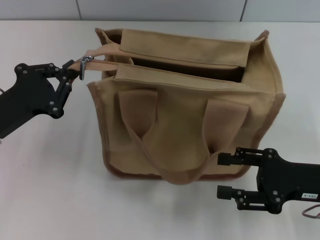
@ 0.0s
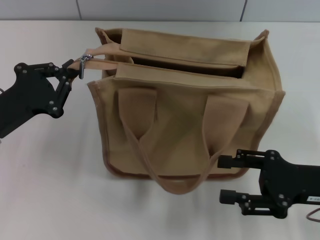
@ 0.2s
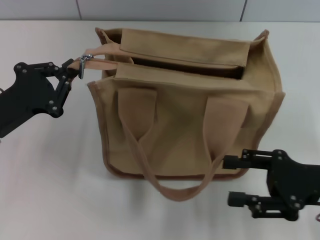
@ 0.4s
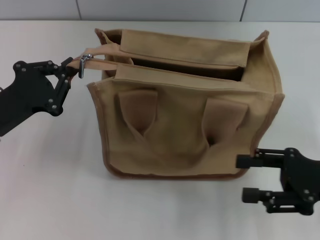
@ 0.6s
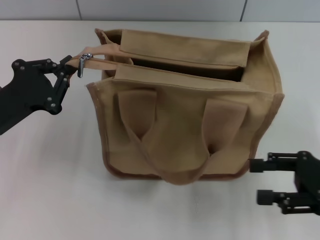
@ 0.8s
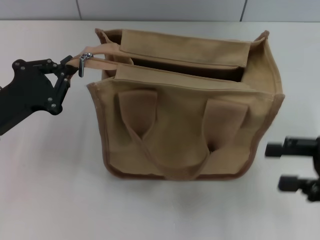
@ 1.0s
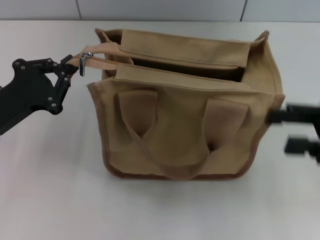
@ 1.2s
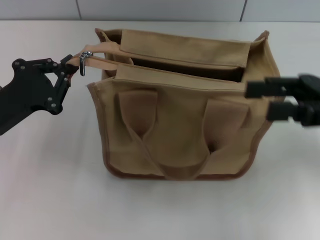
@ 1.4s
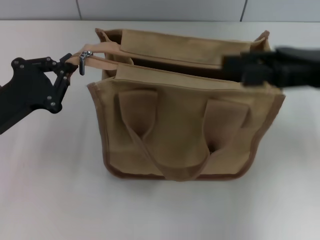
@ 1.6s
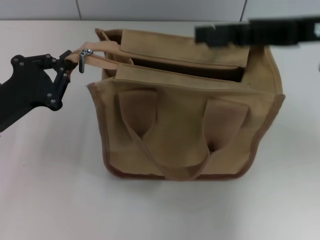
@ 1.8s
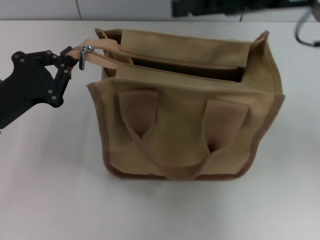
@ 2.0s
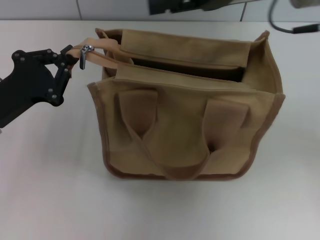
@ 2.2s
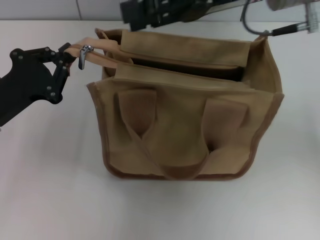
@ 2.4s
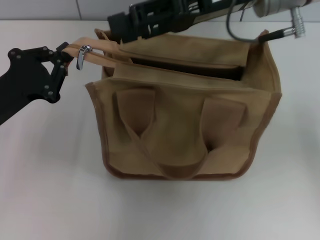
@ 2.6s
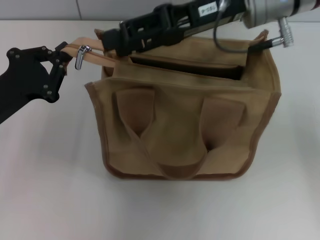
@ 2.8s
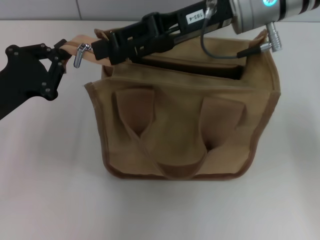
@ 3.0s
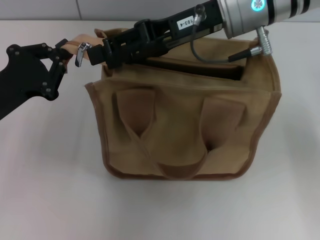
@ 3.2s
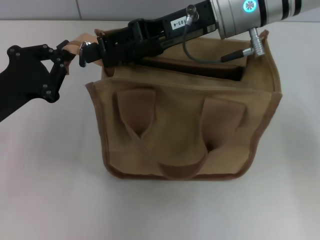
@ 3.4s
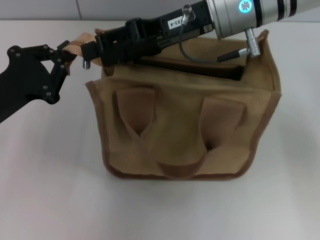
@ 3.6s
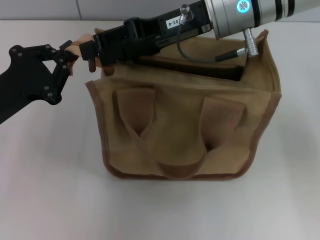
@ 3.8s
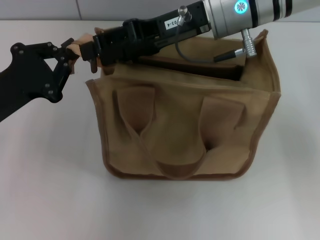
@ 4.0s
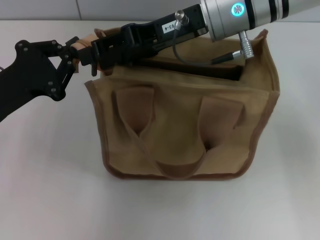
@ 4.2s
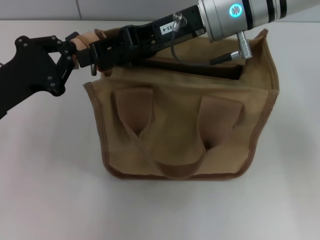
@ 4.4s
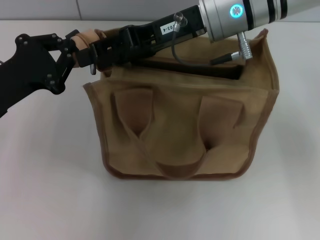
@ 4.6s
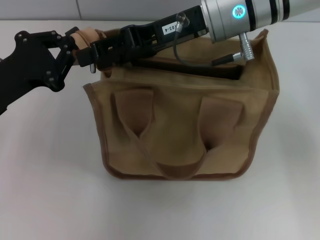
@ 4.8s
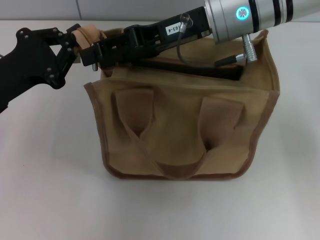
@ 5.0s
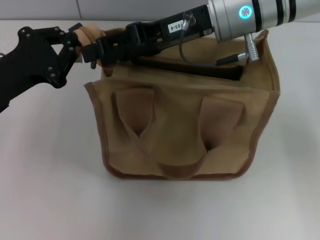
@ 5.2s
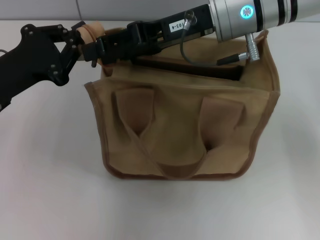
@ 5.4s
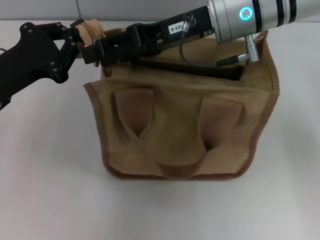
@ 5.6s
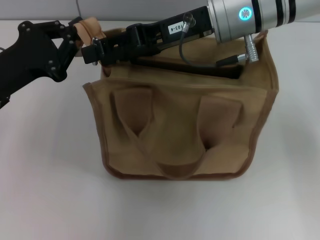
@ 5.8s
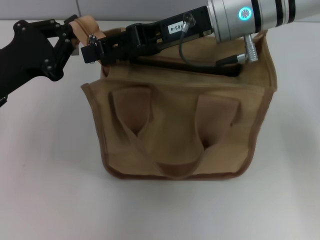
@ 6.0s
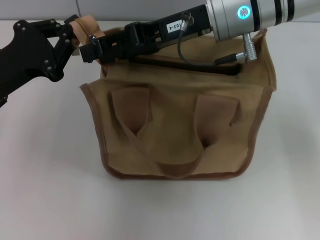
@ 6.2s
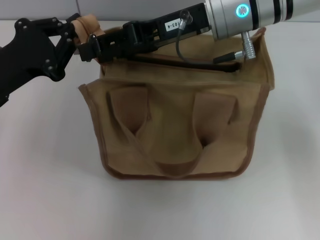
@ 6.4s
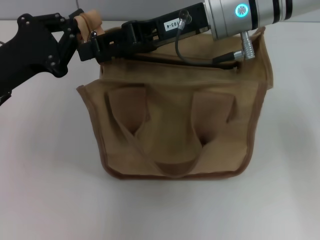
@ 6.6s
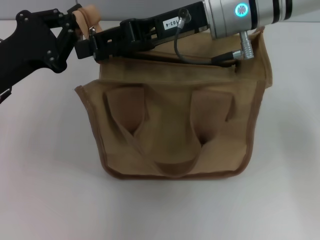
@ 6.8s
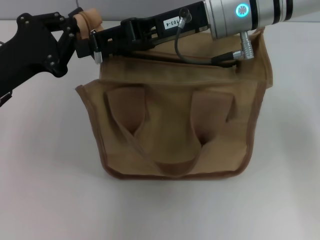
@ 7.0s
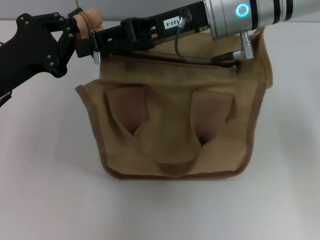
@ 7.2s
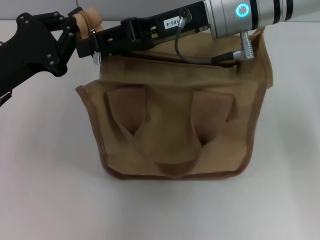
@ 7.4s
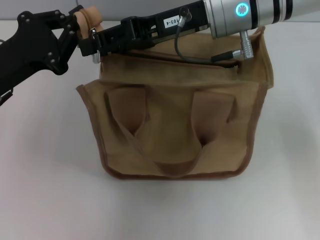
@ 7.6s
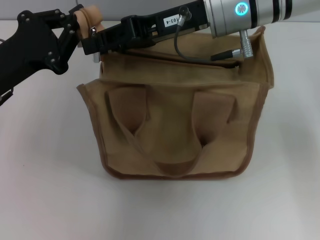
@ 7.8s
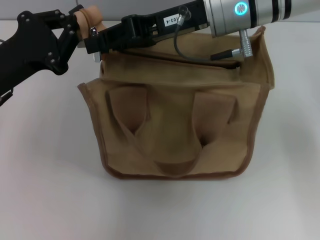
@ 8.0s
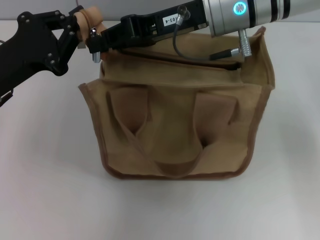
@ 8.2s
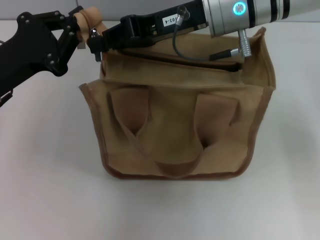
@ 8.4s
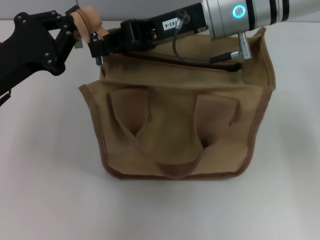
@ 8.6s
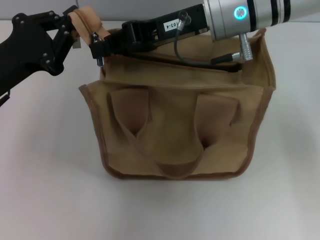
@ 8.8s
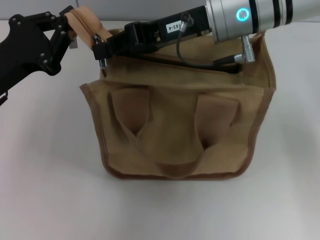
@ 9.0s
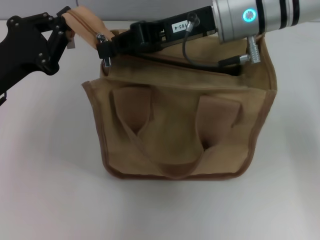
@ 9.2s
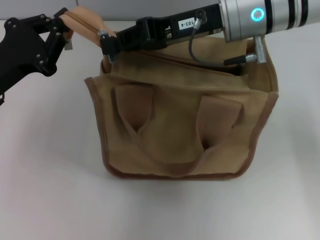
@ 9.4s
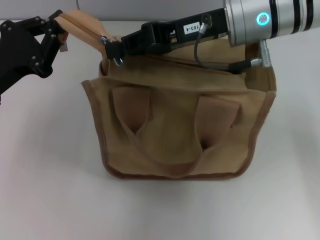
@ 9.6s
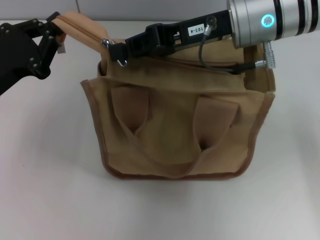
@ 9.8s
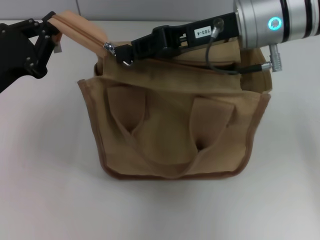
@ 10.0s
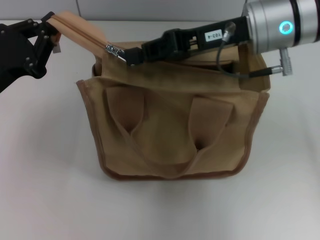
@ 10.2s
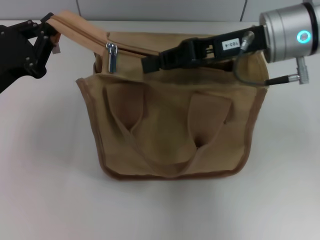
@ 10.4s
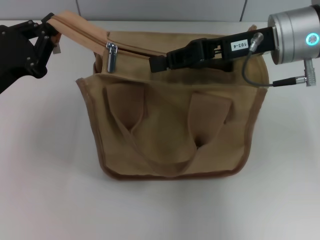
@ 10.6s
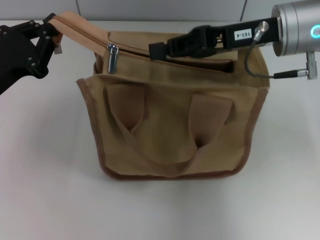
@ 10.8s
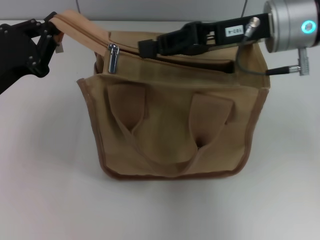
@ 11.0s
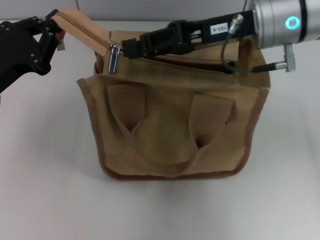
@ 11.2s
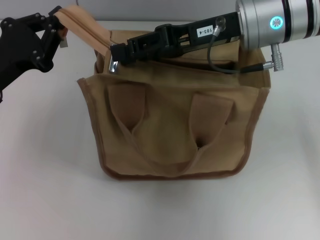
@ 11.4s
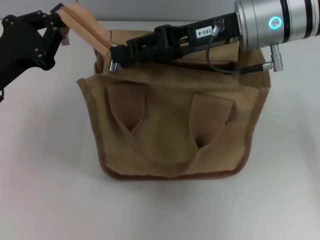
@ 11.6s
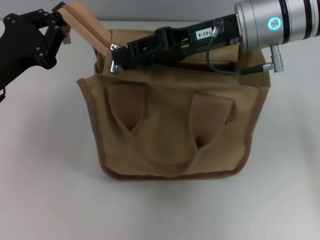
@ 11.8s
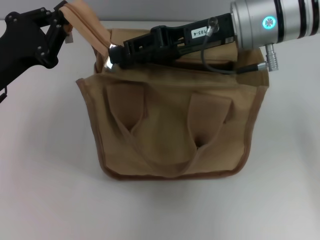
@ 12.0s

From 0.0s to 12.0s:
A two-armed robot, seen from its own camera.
From 0.0s to 1.6s: The right gripper goes approximately 15 cm upward and forward.
From 1.6s to 3.0s: The right gripper heads to the left and forward, covering some 15 cm.
From 3.0s to 6.0s: The grippers make only small movements.
From 6.0s to 7.6s: Both grippers stay about where they are.
From 7.6s to 9.0s: The right gripper closes up.
From 9.0s to 10.4s: The right gripper shifts approximately 5 cm to the right.
From 10.4s to 12.0s: The right gripper opens.

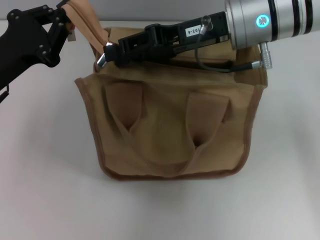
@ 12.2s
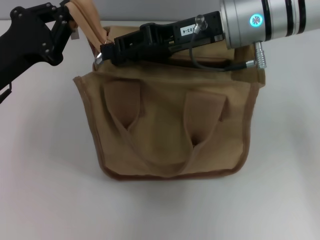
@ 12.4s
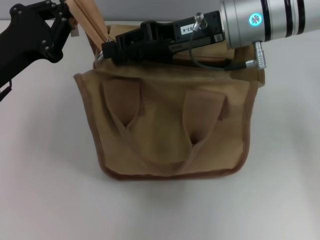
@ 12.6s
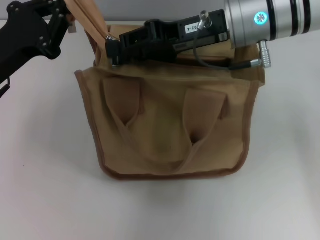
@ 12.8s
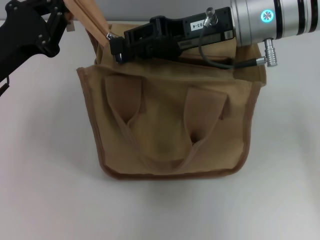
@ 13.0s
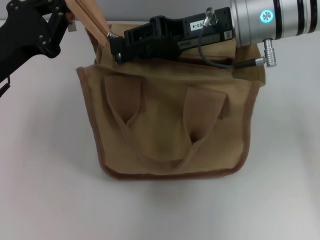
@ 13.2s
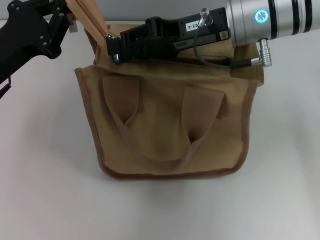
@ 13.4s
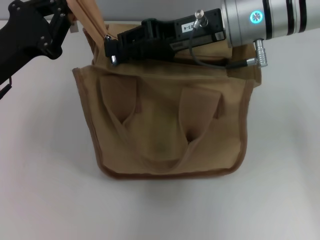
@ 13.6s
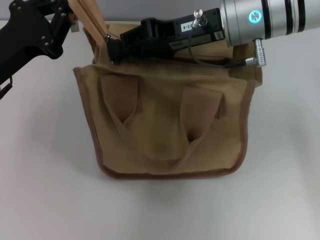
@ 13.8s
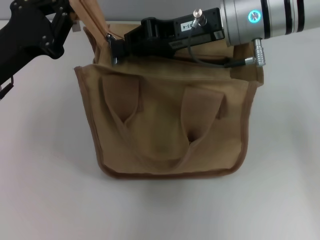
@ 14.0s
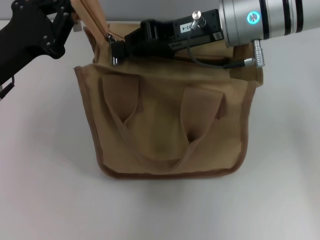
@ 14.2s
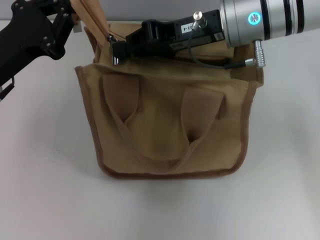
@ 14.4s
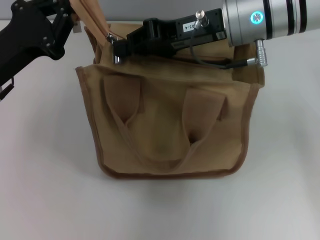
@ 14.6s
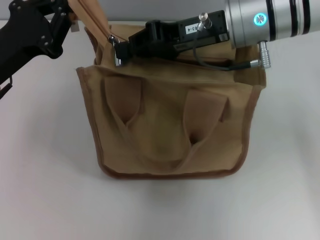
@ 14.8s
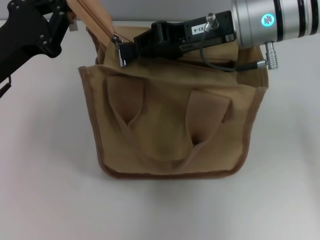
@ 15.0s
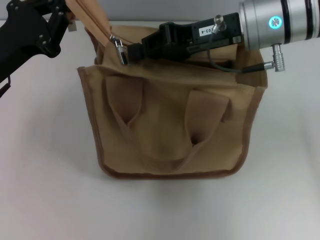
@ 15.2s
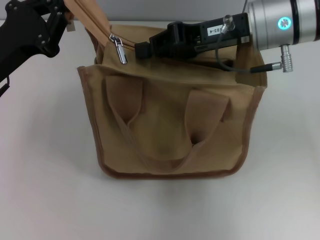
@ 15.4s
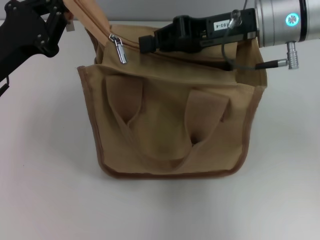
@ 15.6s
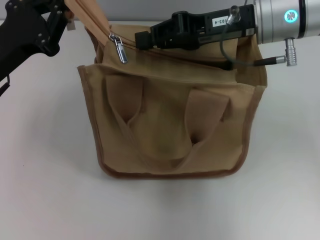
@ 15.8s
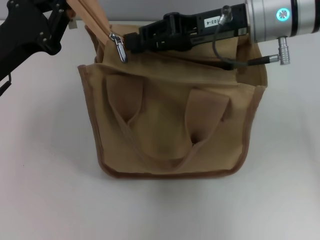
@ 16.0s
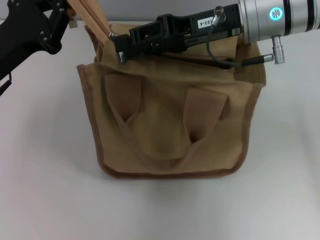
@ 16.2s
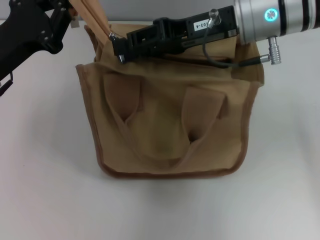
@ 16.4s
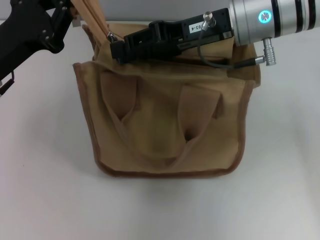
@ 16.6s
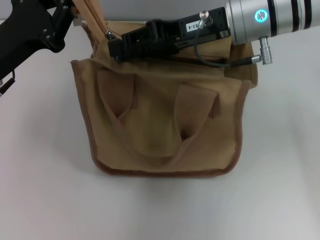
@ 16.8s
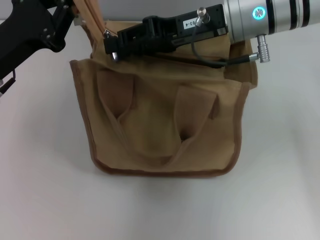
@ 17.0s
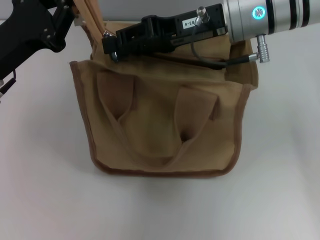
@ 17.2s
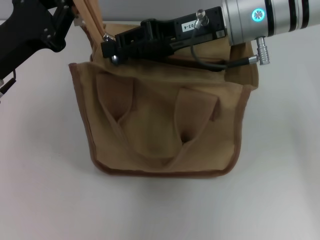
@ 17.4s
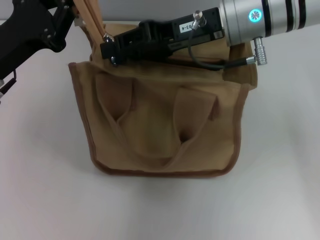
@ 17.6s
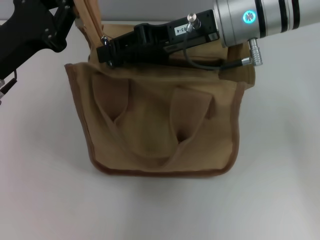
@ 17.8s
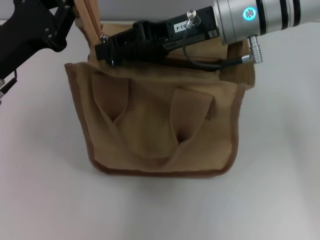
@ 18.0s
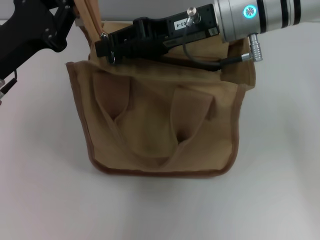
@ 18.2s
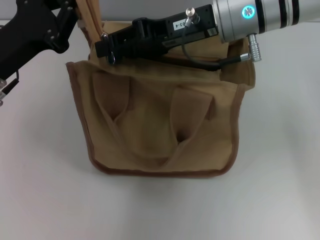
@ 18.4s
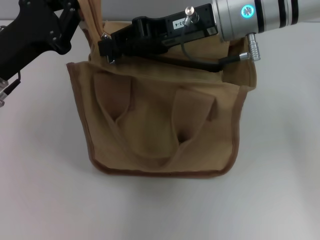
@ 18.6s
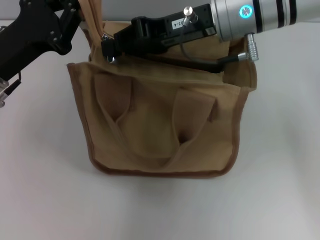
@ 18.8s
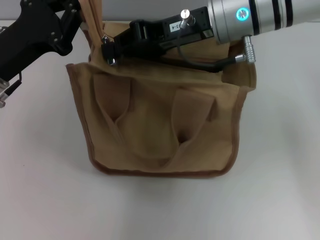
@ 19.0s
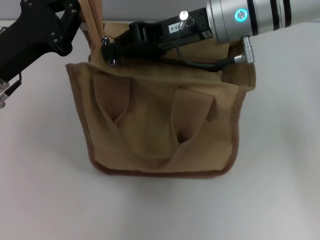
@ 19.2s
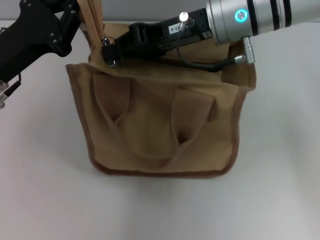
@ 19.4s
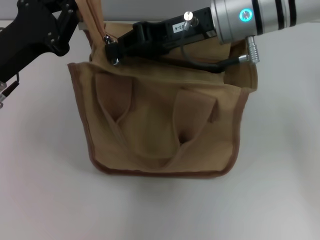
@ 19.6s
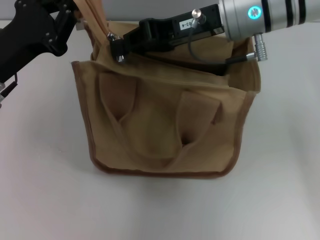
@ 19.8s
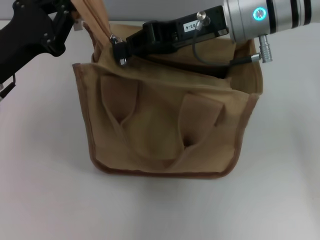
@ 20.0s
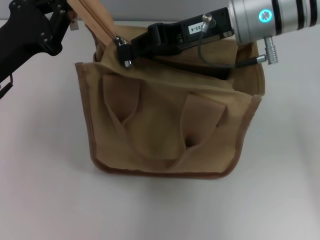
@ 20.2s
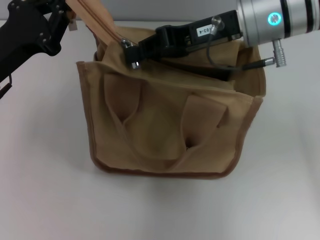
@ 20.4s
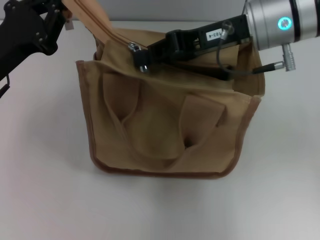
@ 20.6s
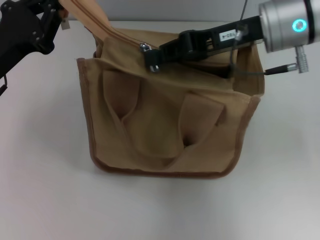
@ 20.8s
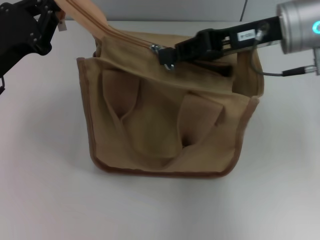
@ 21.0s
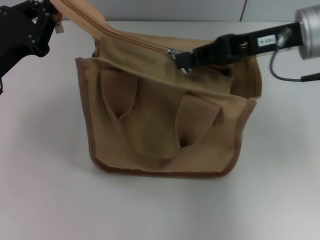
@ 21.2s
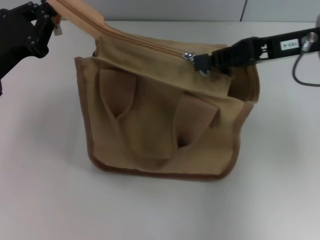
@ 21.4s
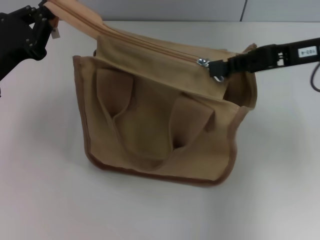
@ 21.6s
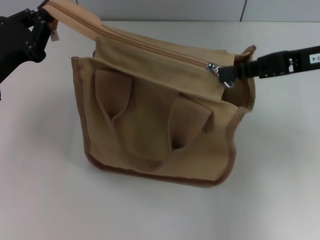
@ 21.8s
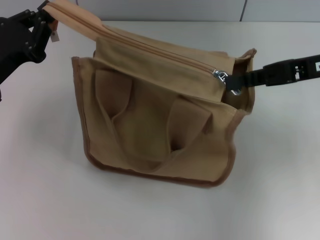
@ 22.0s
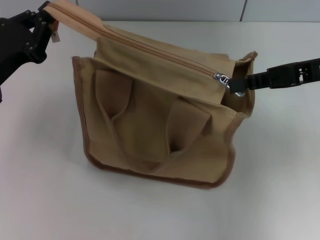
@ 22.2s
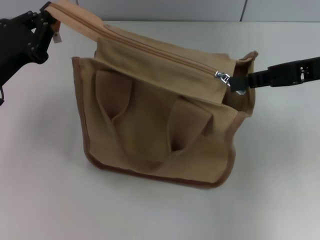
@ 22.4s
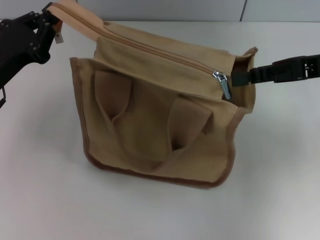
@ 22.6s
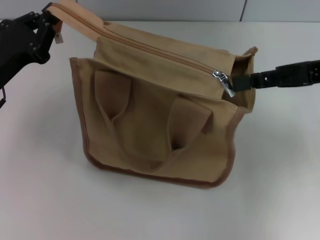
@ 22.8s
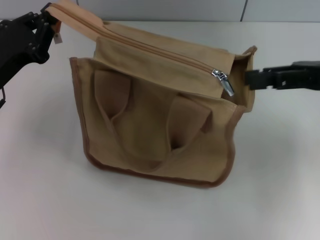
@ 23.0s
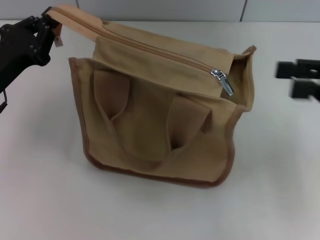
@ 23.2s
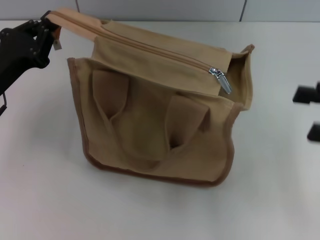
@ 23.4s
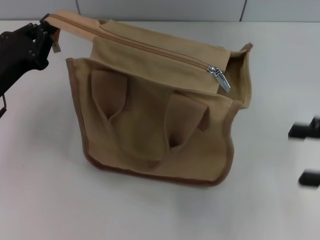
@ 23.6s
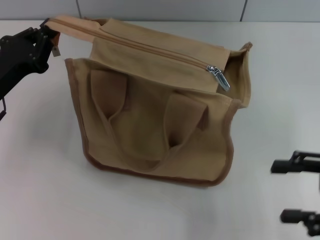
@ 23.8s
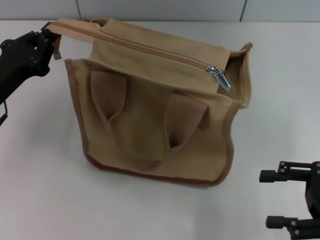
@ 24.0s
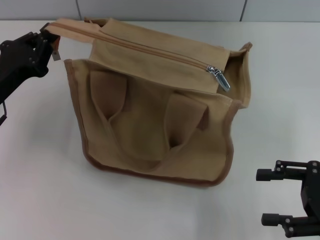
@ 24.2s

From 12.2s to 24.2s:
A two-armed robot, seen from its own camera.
Step, from 12.2s to 22.4s: Pull up the zipper with your right hand.
From 12.2s to 13.8s: There are only small adjustments of the grippers.
From 13.8s to 15.2s: The right gripper closes.
From 15.2s to 16.6s: The right gripper opens.
From 16.6s to 18.2s: There are only small adjustments of the grippers.
From 18.2s to 19.8s: The right gripper closes.
From 19.8s to 21.2s: The right gripper shifts some 10 cm to the right.
From 21.2s to 22.6s: The right gripper goes some 5 cm to the right.
From 22.6s to 24.2s: The right gripper is displaced backward and downward by roughly 15 cm, and opens.
